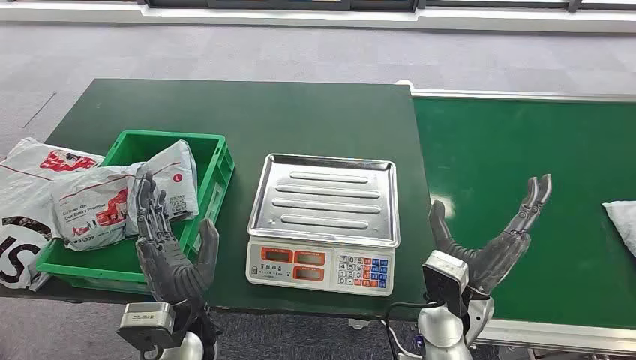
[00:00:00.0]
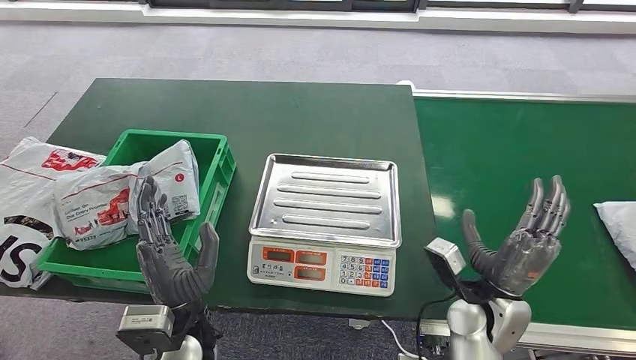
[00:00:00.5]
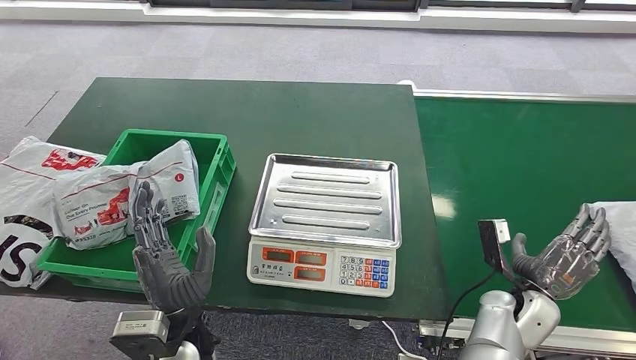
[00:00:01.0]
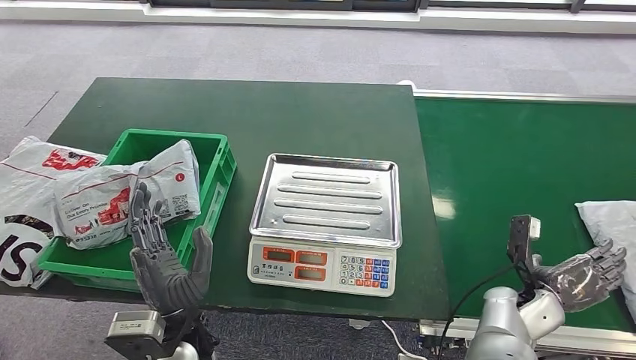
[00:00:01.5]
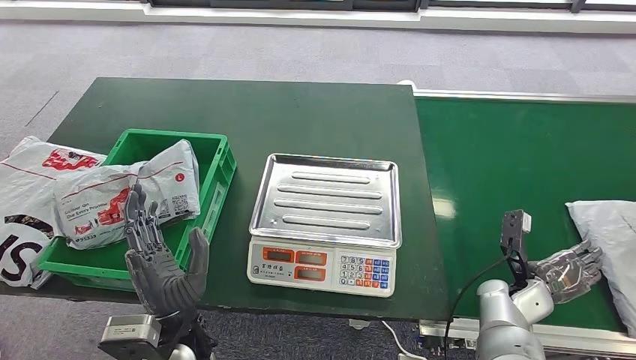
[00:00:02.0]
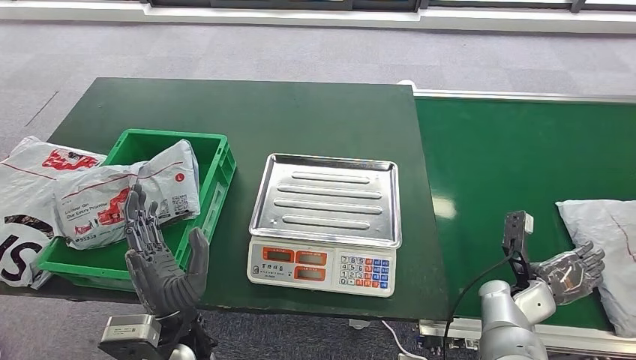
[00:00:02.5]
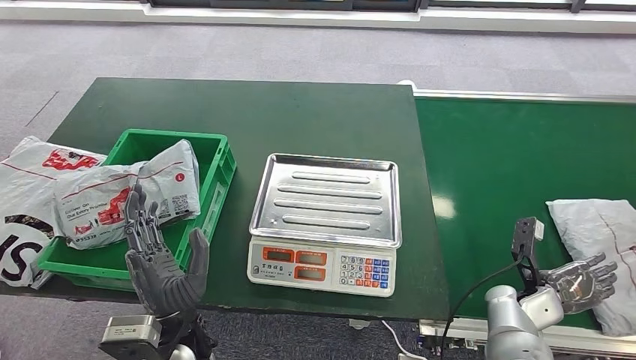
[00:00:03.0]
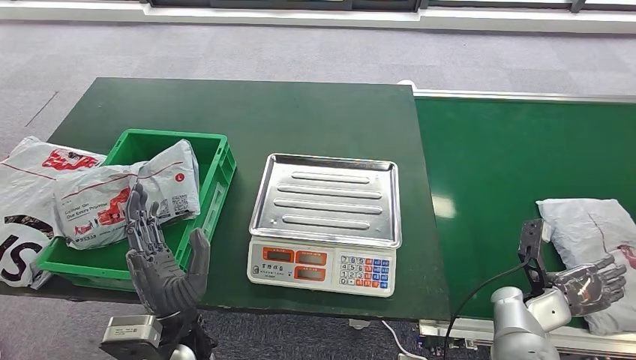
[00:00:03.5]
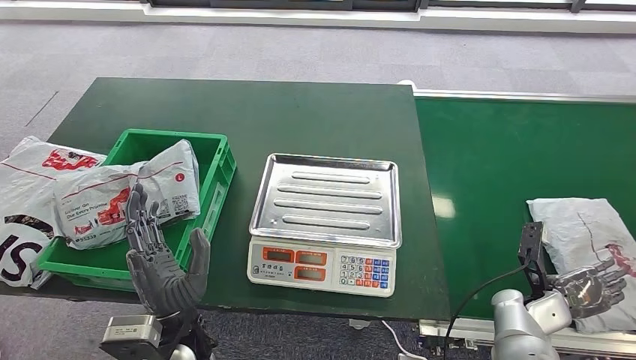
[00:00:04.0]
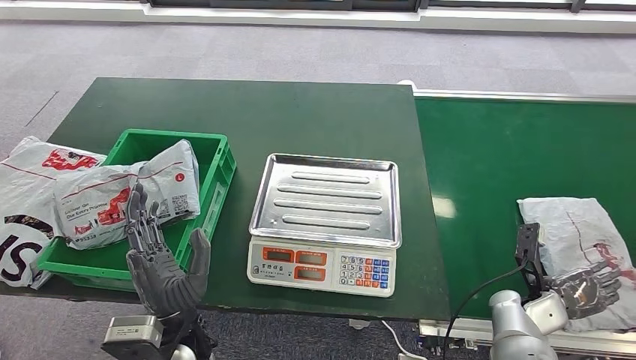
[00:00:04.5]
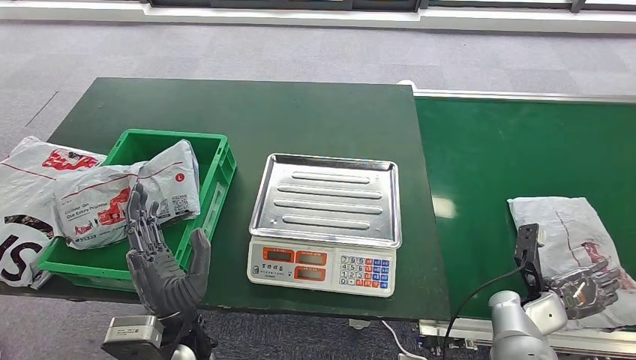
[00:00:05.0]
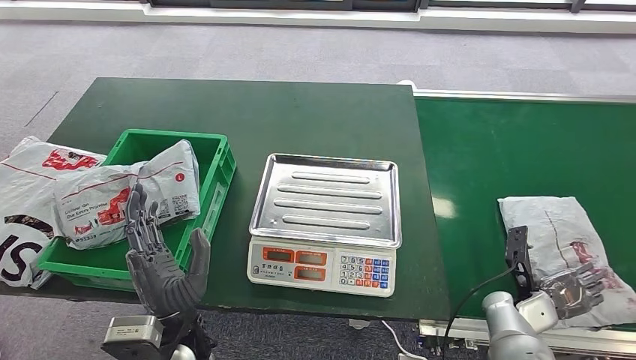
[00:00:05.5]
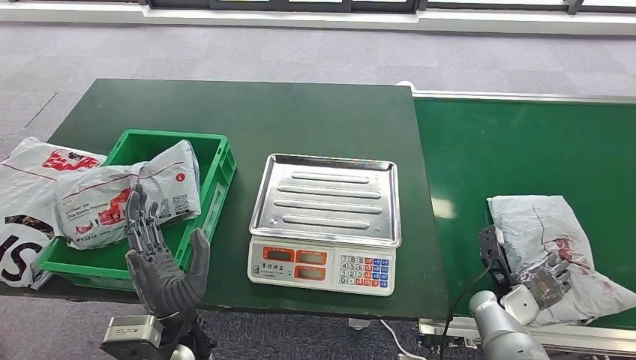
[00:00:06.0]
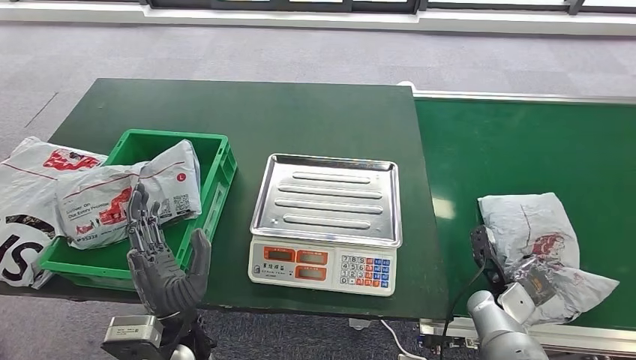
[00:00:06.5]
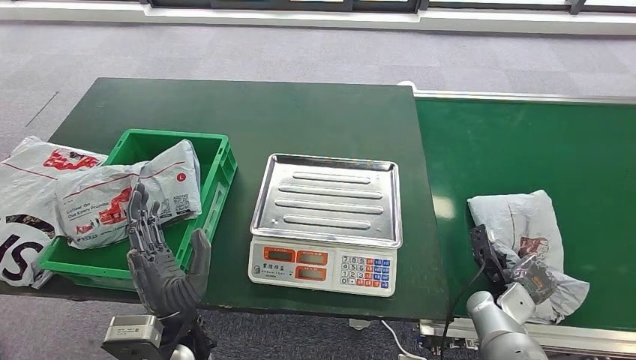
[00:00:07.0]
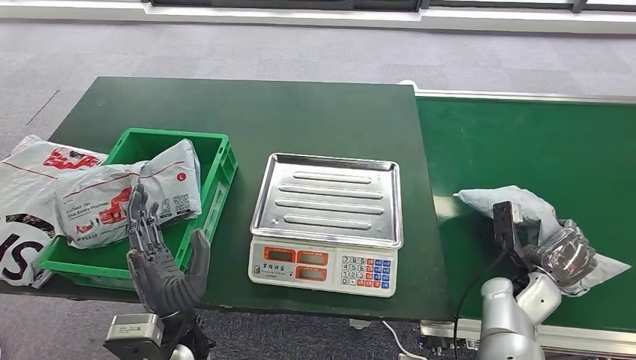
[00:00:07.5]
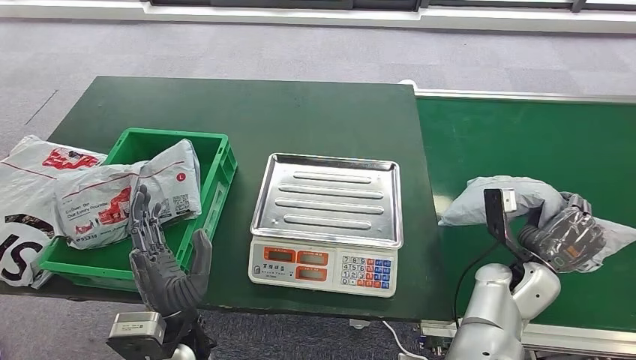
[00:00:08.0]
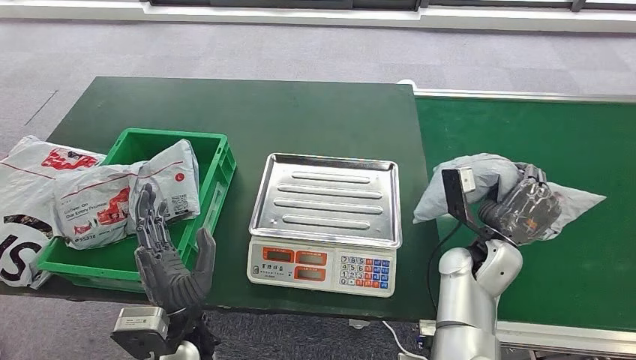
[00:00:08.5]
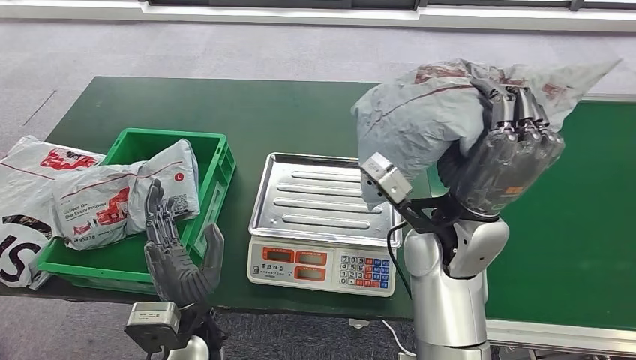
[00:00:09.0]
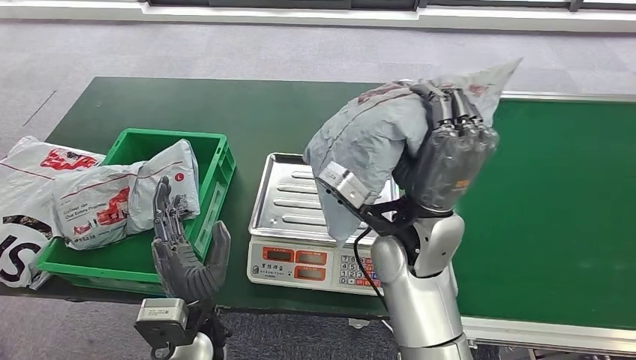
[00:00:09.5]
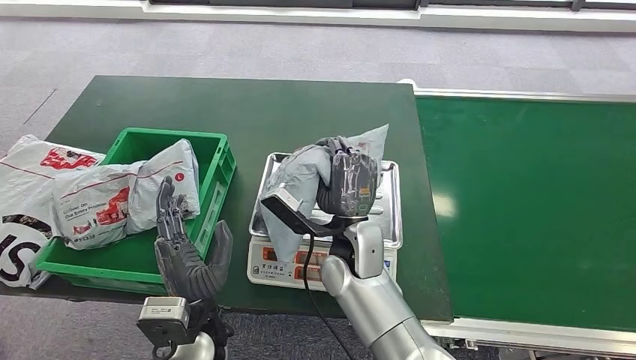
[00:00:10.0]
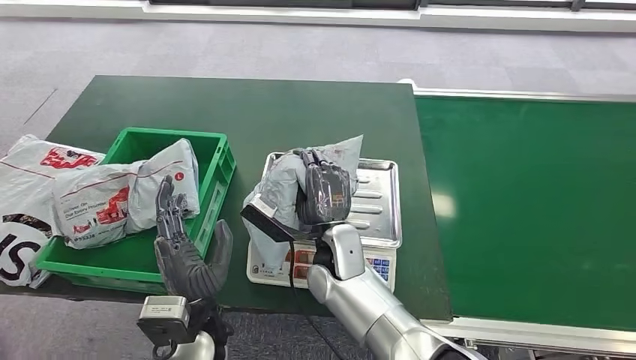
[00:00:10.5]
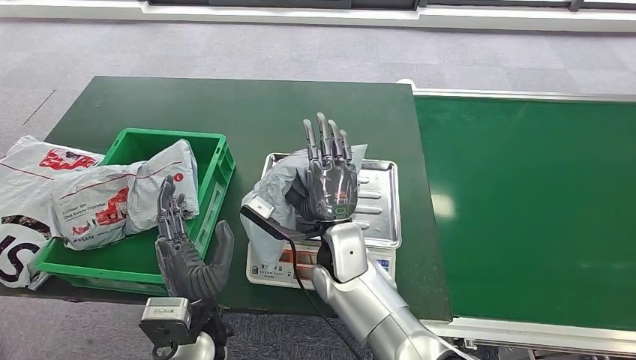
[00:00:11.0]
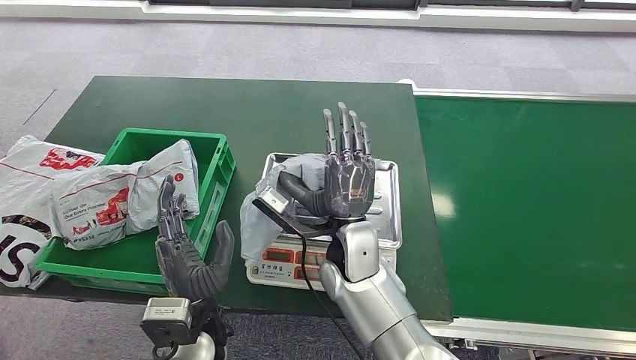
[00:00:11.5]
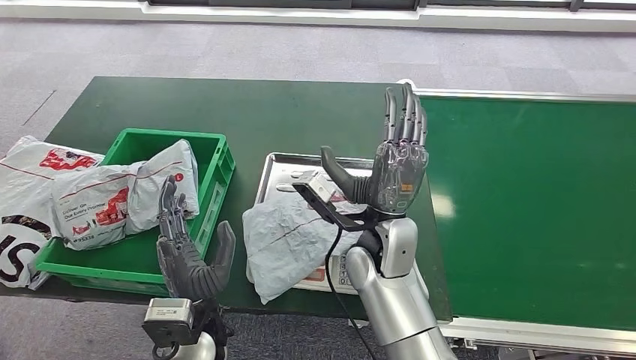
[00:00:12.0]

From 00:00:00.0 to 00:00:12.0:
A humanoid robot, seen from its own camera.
Step, from 00:00:00.0 to 00:00:09.0: Pick up the package from the conveyor belt.
From 00:00:02.0 to 00:00:04.0: The hands move only a little.
From 00:00:04.0 to 00:00:06.0: There are only small adjustments of the hands.
From 00:00:10.0 to 00:00:12.0: The hands move only a little.

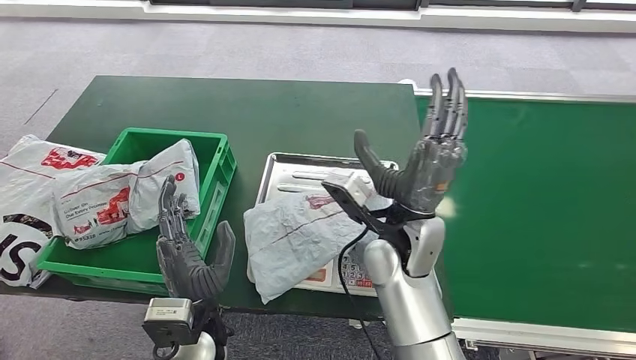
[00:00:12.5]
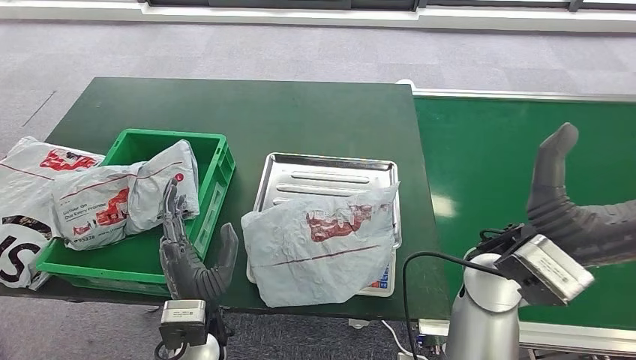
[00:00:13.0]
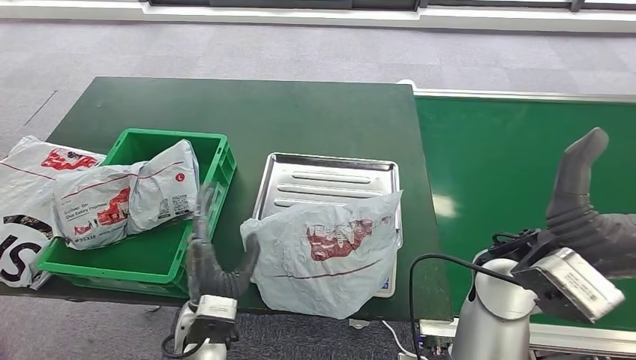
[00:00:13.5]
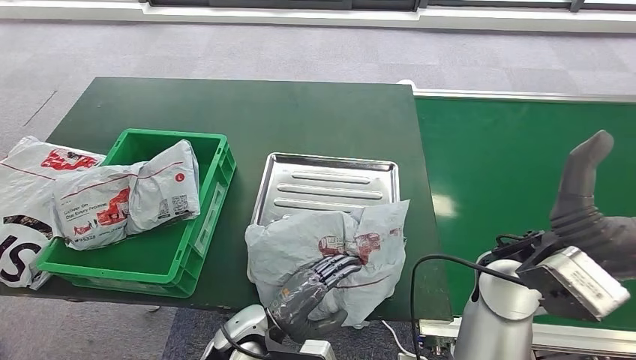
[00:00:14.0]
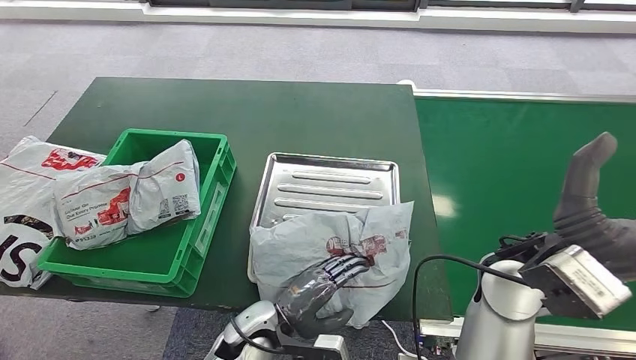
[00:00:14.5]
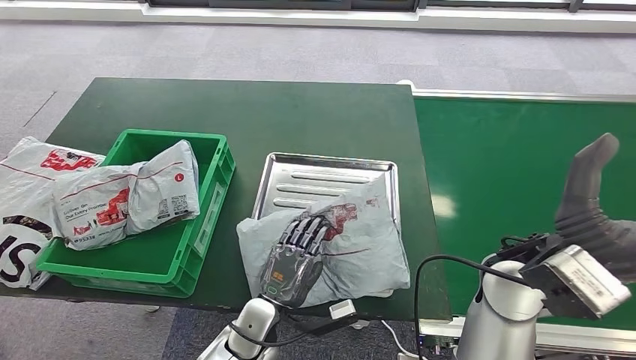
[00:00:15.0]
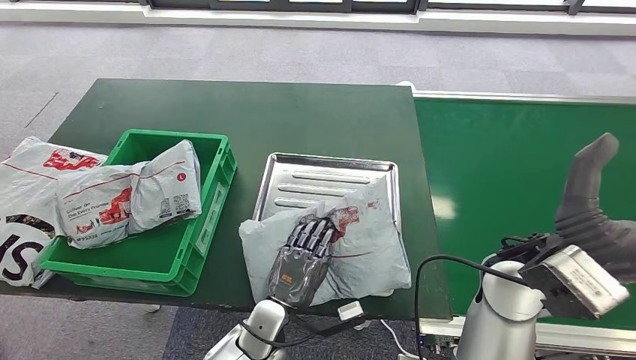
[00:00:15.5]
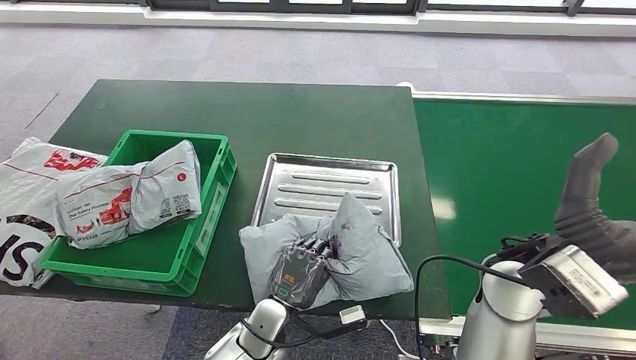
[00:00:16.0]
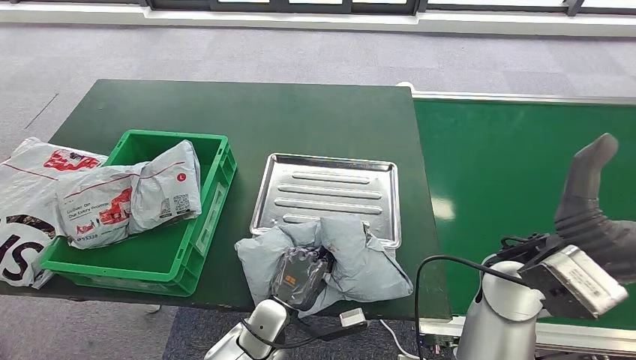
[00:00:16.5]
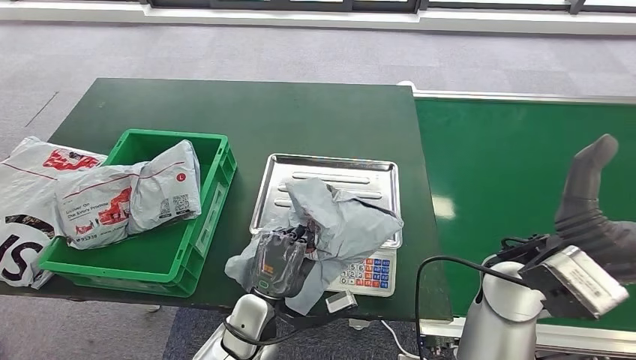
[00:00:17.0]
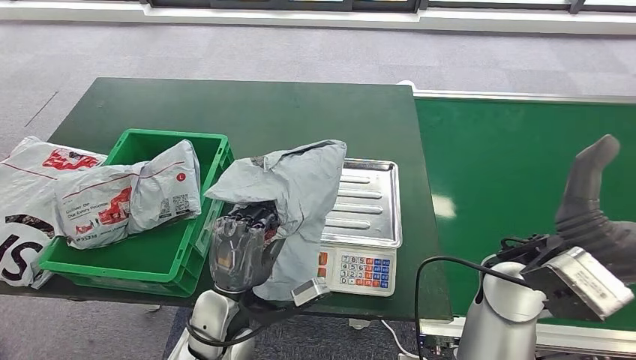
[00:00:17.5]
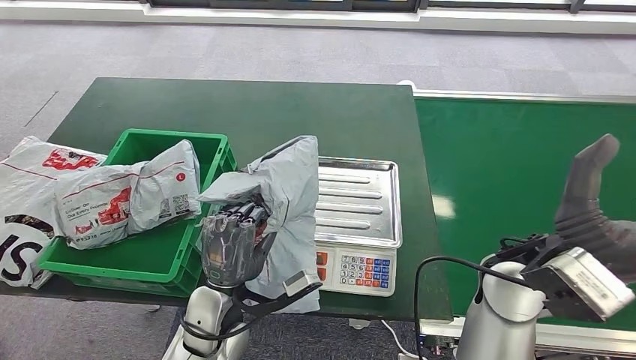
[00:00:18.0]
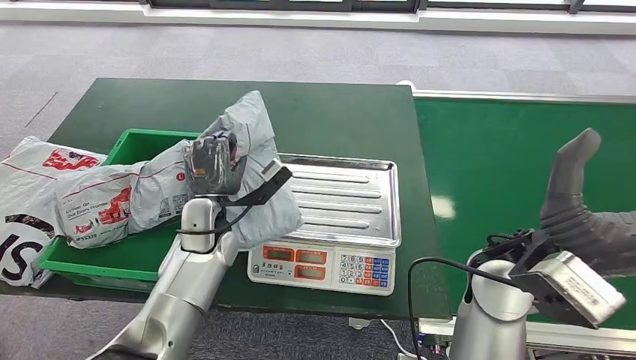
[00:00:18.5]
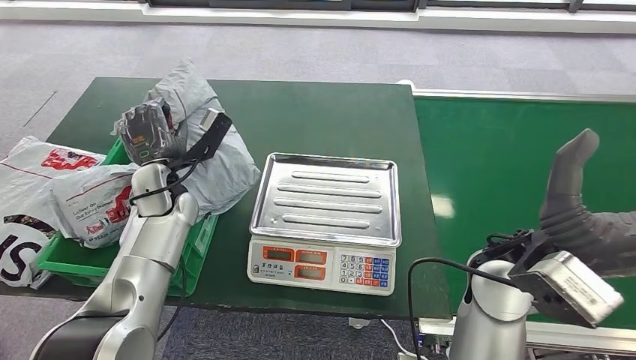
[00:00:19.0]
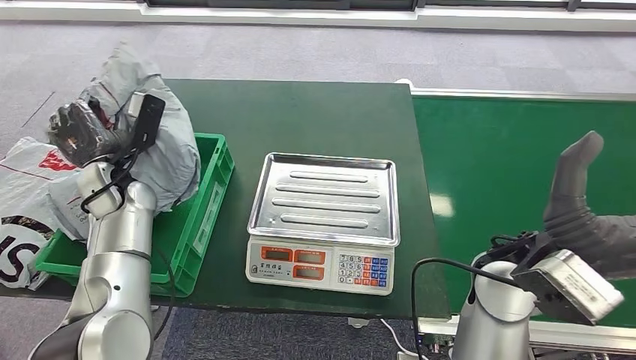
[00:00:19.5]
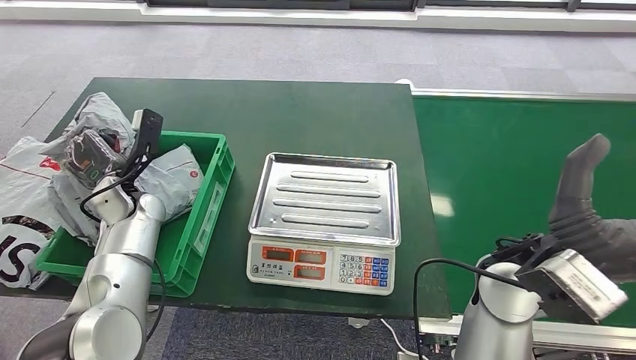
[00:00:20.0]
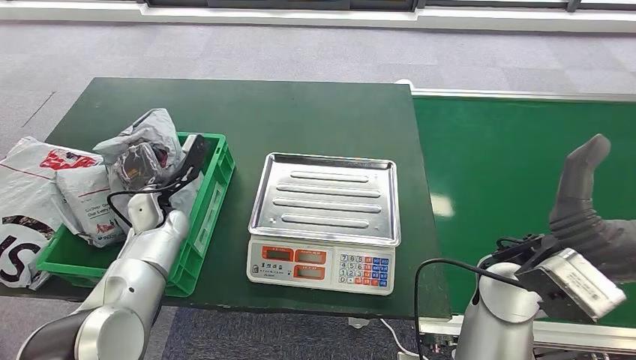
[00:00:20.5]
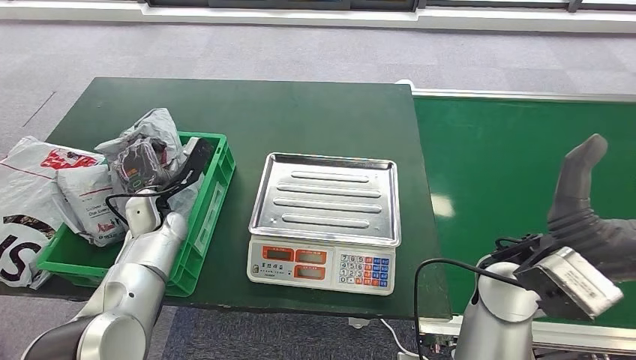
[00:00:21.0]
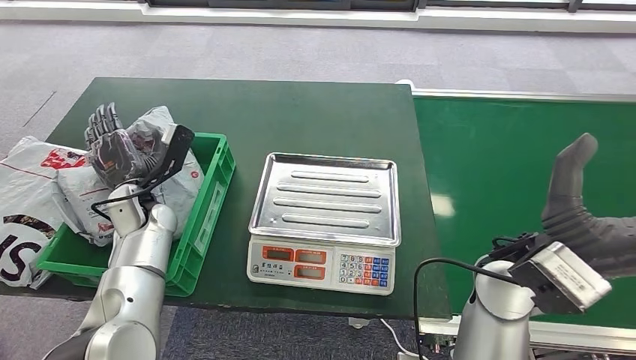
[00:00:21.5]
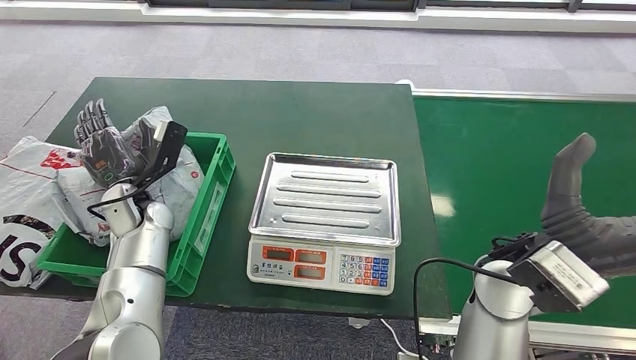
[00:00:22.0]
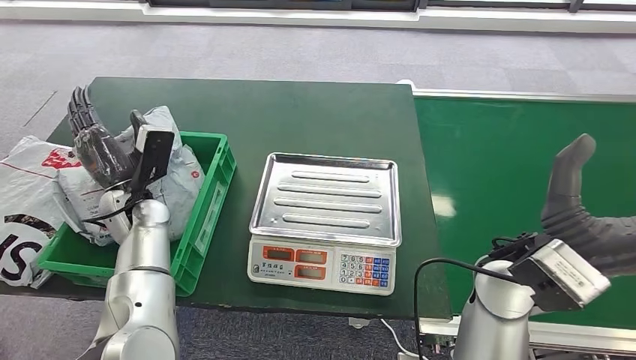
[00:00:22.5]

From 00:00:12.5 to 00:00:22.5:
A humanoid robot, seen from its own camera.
Step, from 00:00:12.5 to 00:00:17.5: Pick up the package from the inbound machine.
Step, from 00:00:18.0 to 00:00:22.5: Place the package into the parcel locker.
